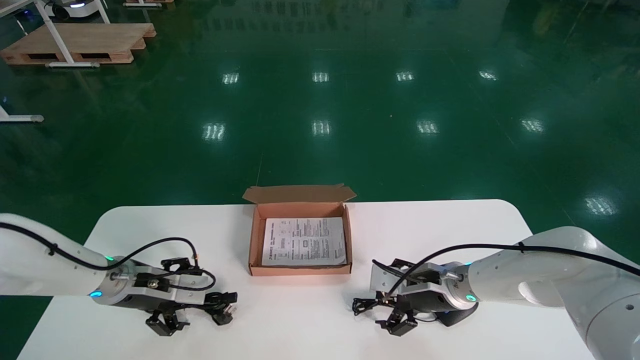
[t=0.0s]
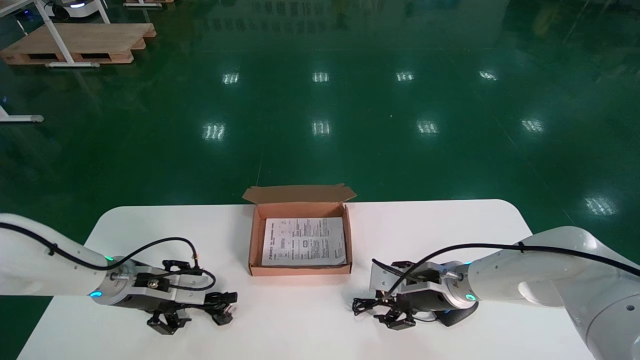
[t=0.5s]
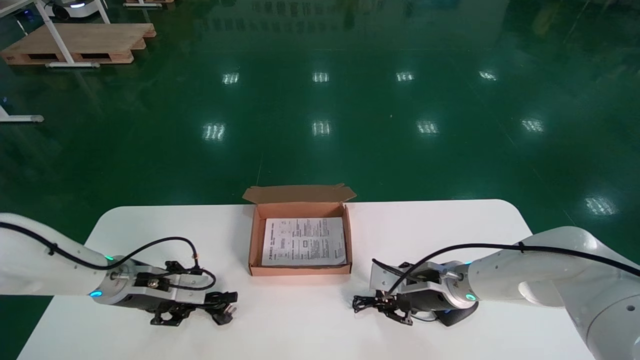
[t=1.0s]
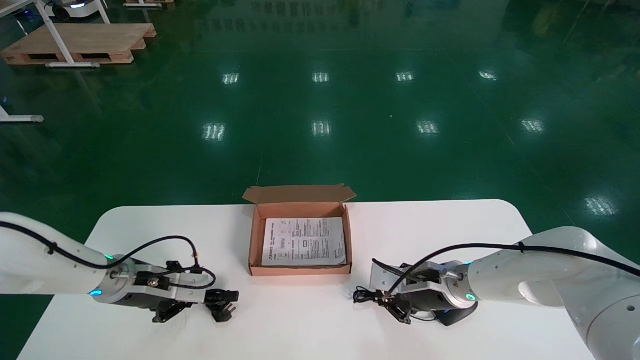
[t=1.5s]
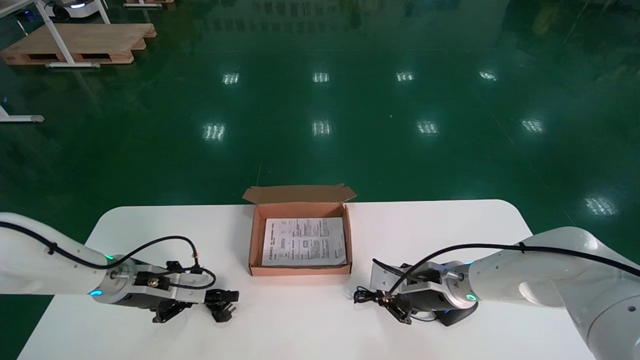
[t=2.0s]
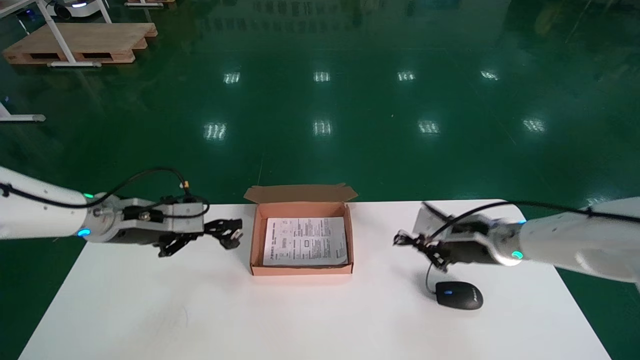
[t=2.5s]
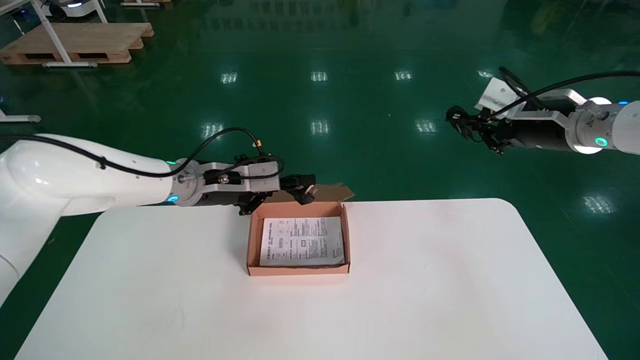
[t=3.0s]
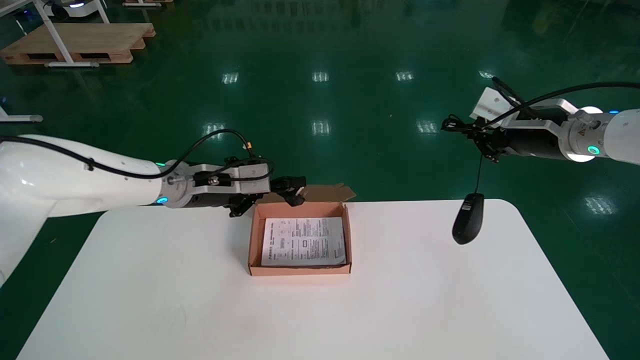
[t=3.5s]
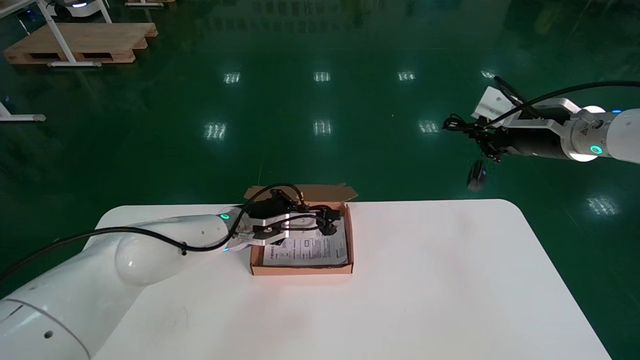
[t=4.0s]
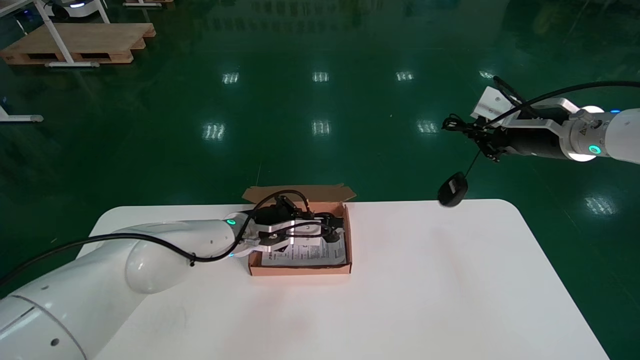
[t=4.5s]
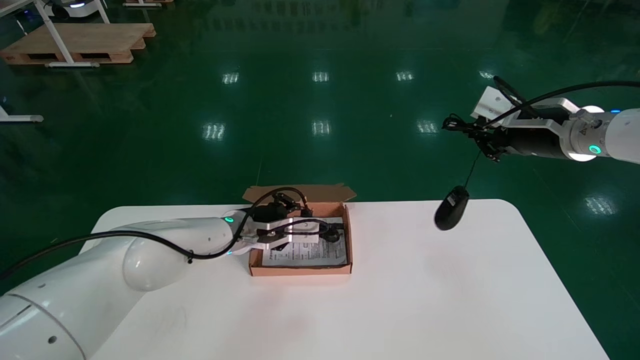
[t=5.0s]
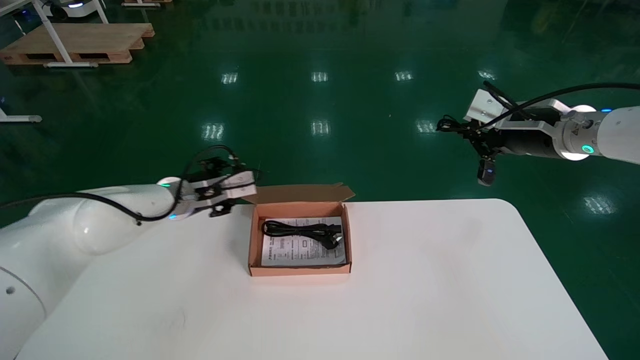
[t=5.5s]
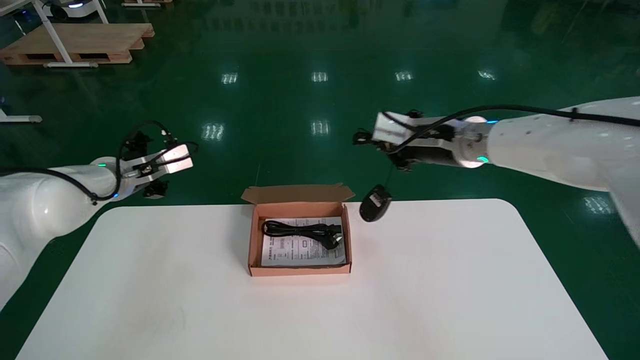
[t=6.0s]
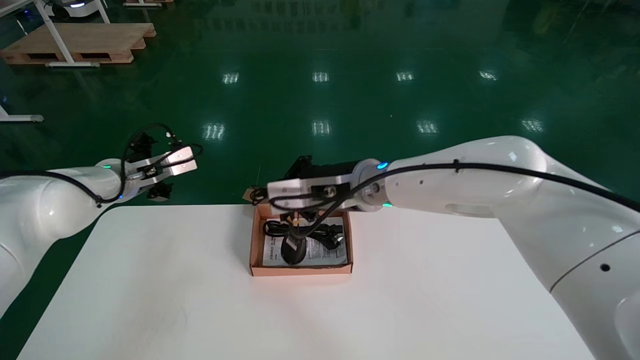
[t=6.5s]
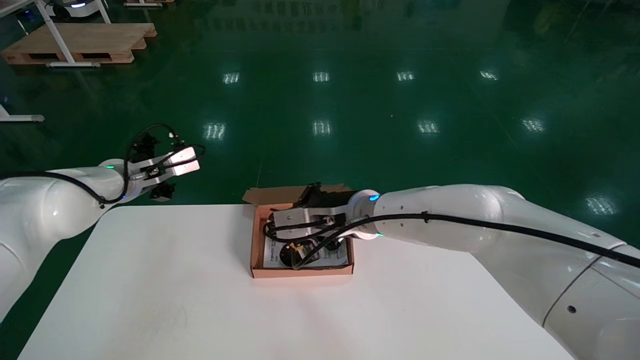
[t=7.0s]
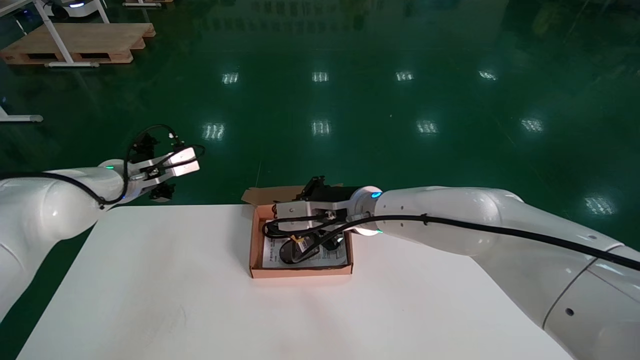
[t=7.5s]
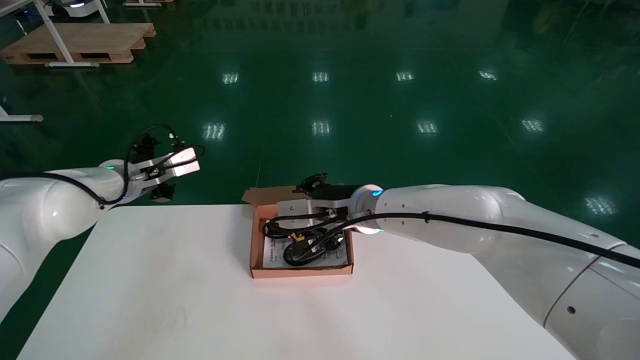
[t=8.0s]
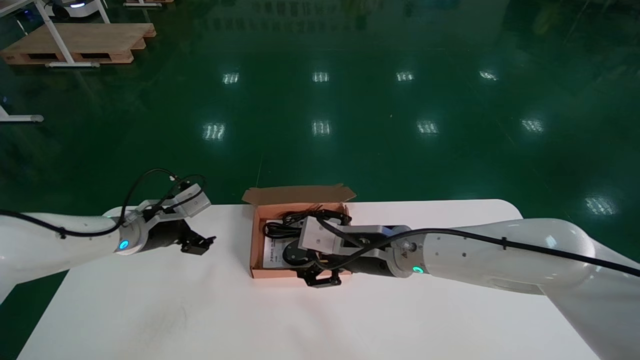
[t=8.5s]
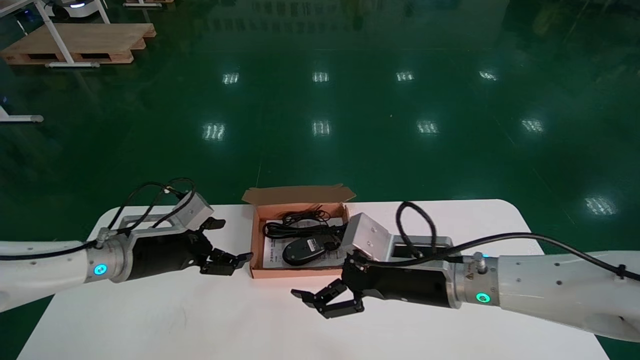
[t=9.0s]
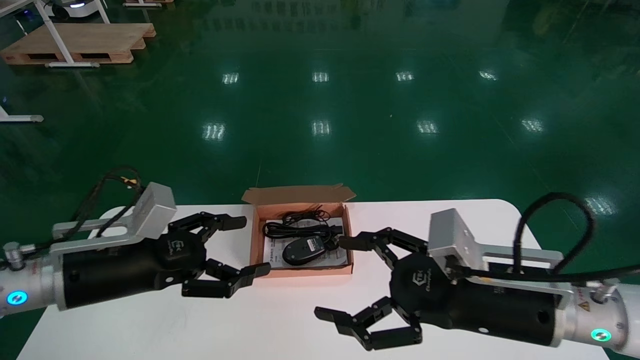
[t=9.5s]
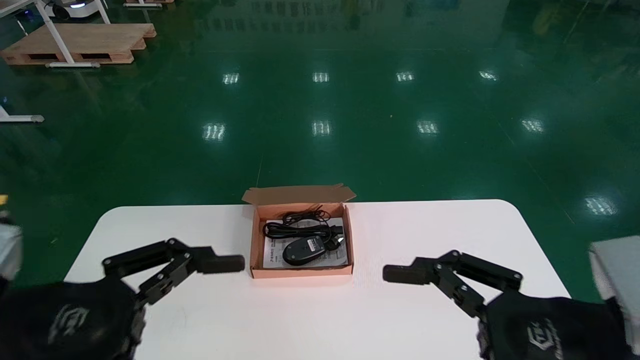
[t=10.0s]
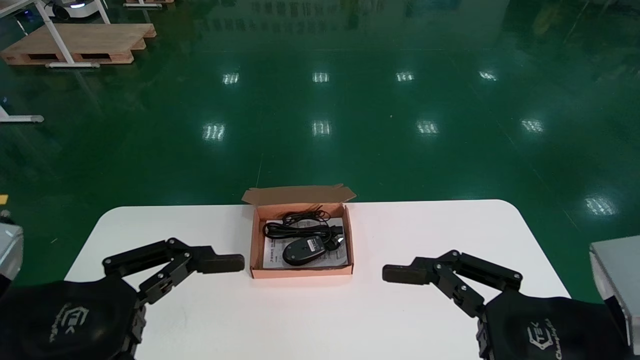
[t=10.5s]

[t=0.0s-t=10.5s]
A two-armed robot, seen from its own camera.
Step, t=0.0s to t=2.5s: Simultaneously pick up the mouse and power cord from the accessory packaging area.
Step, t=3.0s to t=8.0s: Place the mouse and power cord into the box.
t=0.0s to t=2.0s: The left gripper closes its fingers. Meanwhile the right gripper closes up.
t=2.0s to t=4.0s: The right gripper travels upward and to the right by approximately 30 cm. The left gripper heads to the right and upward, covering roughly 20 cm.
t=4.0s to t=6.5s: The left gripper moves to the left, some 20 cm, and opens up, while the right gripper is displaced to the left by approximately 30 cm.
t=6.5s to t=8.5s: Both grippers travel together downward, roughly 10 cm. The right gripper opens.
t=8.5s to t=10.5s: The left gripper travels backward by roughly 30 cm. The right gripper moves backward and to the right, roughly 30 cm.
